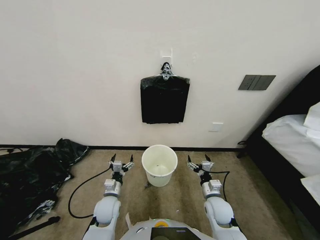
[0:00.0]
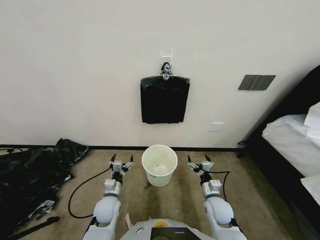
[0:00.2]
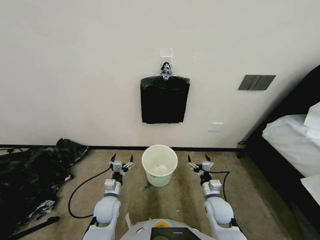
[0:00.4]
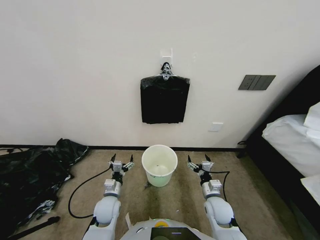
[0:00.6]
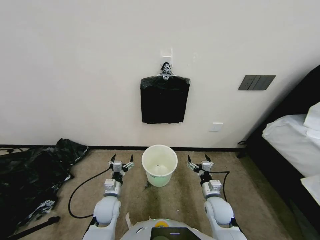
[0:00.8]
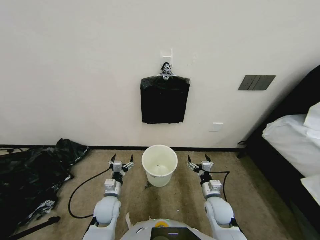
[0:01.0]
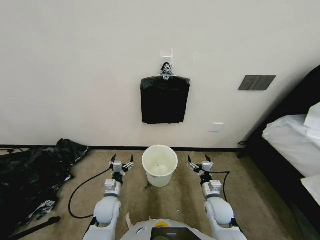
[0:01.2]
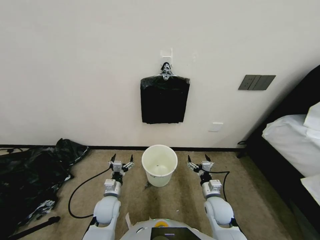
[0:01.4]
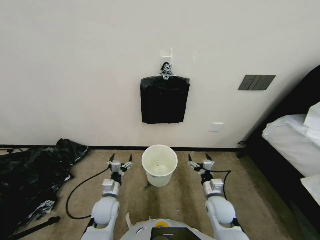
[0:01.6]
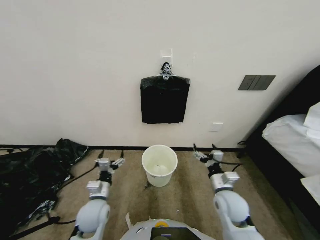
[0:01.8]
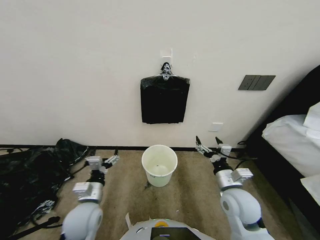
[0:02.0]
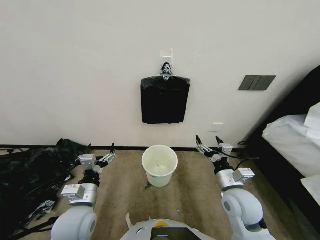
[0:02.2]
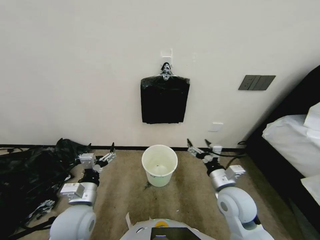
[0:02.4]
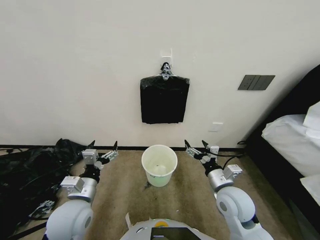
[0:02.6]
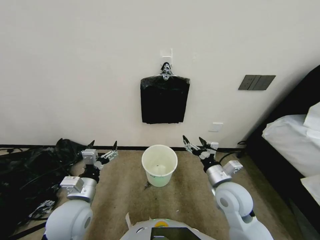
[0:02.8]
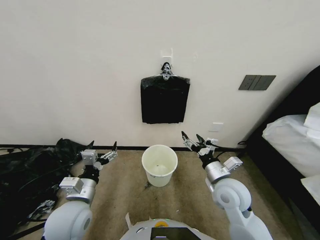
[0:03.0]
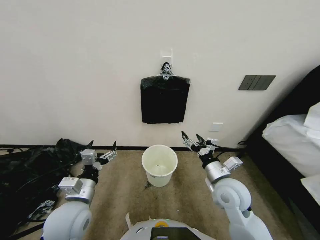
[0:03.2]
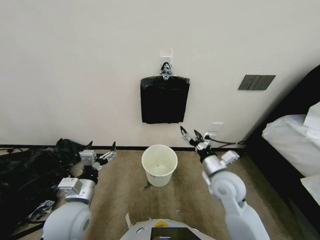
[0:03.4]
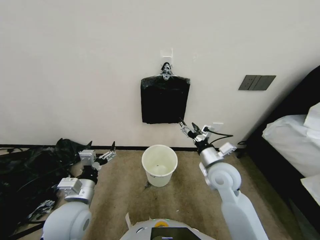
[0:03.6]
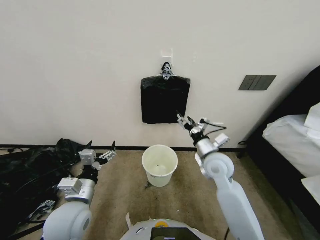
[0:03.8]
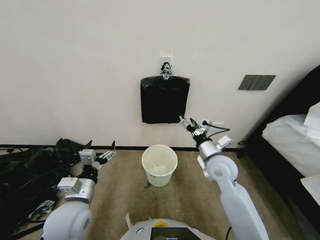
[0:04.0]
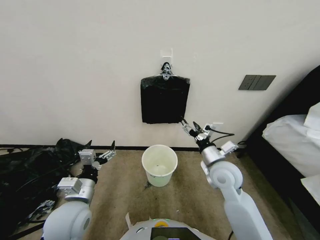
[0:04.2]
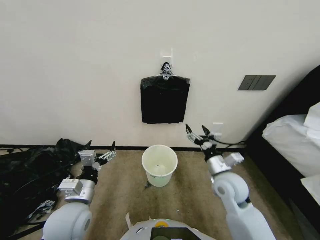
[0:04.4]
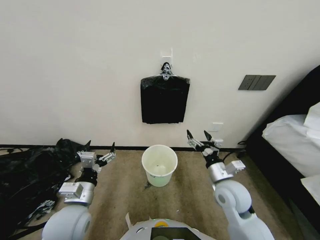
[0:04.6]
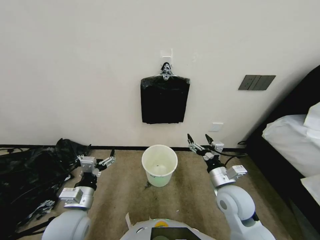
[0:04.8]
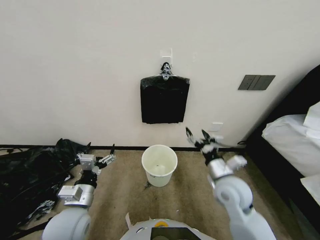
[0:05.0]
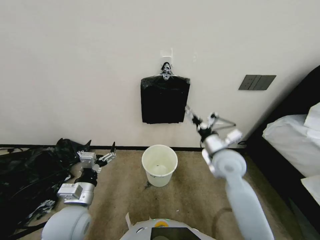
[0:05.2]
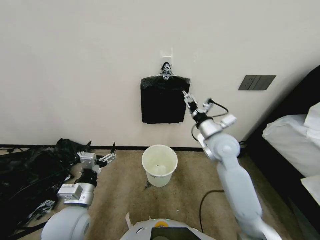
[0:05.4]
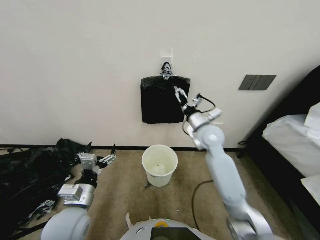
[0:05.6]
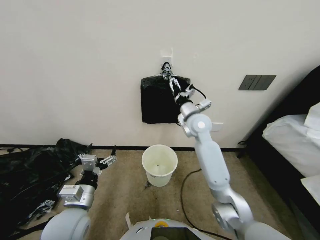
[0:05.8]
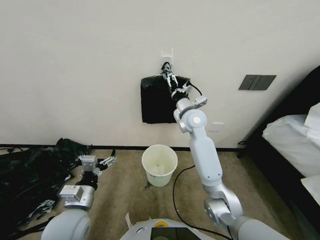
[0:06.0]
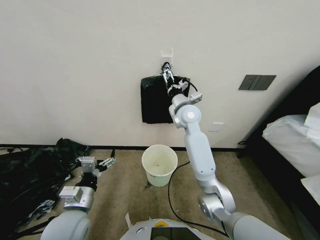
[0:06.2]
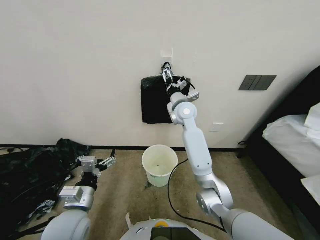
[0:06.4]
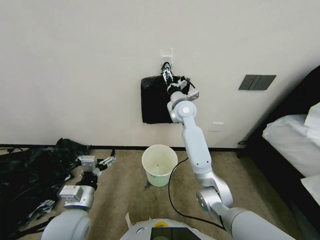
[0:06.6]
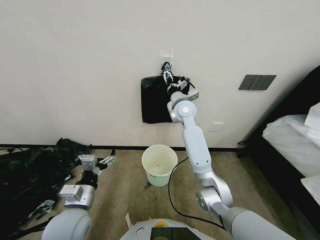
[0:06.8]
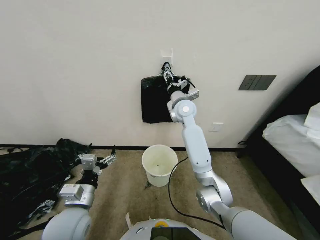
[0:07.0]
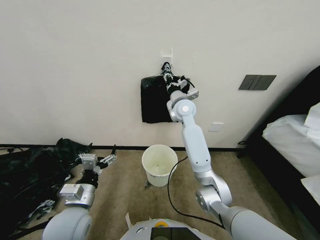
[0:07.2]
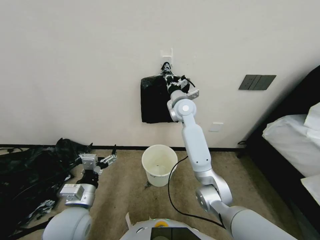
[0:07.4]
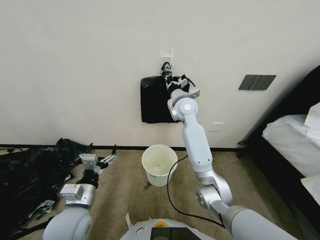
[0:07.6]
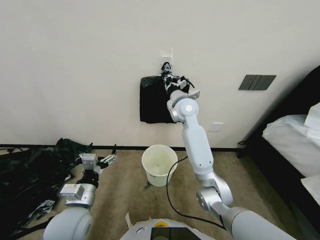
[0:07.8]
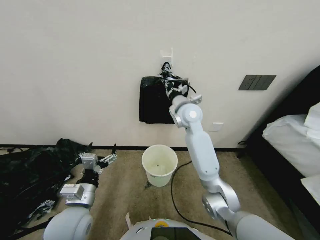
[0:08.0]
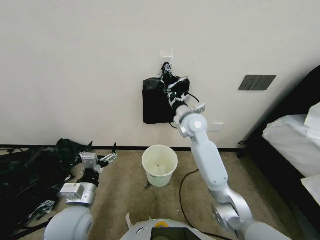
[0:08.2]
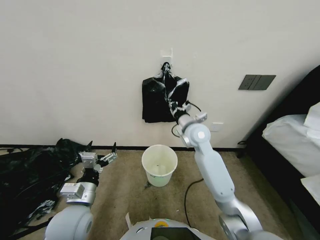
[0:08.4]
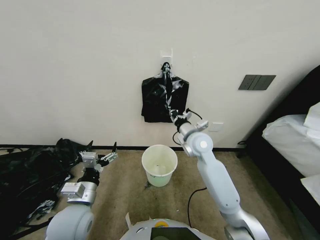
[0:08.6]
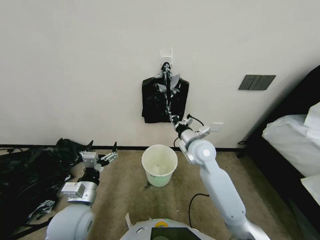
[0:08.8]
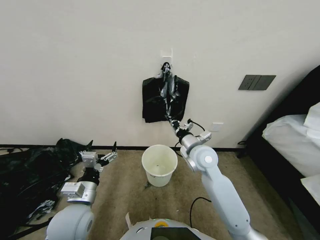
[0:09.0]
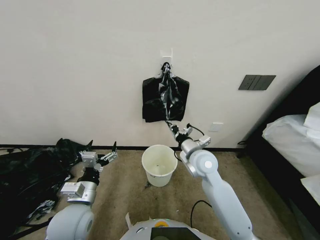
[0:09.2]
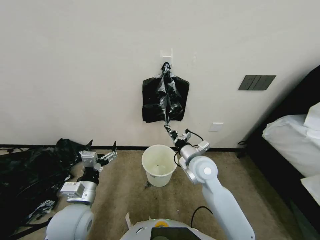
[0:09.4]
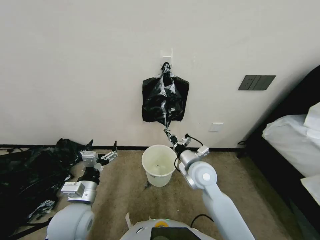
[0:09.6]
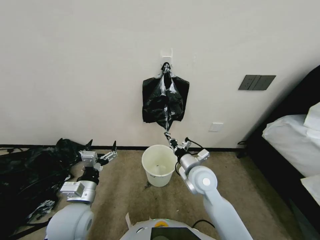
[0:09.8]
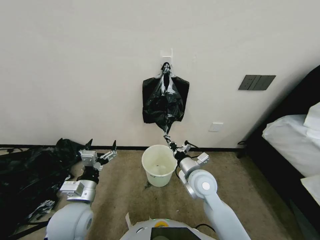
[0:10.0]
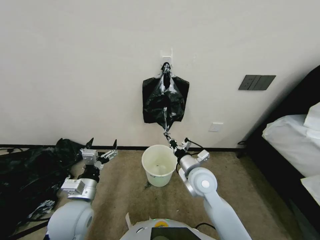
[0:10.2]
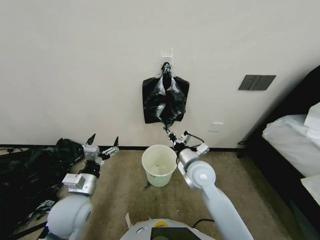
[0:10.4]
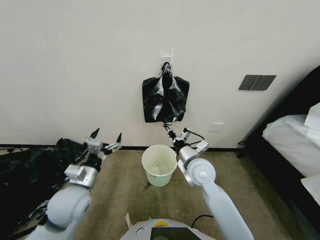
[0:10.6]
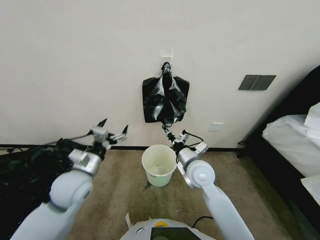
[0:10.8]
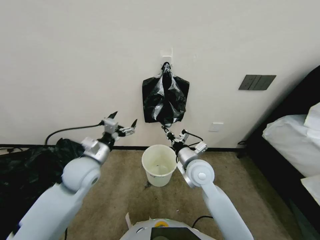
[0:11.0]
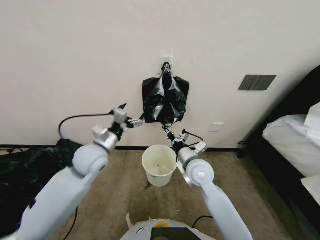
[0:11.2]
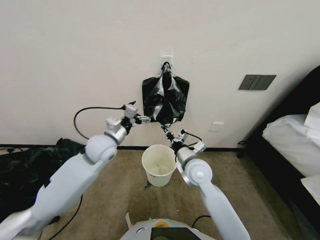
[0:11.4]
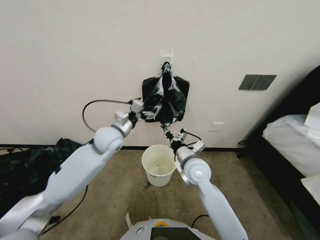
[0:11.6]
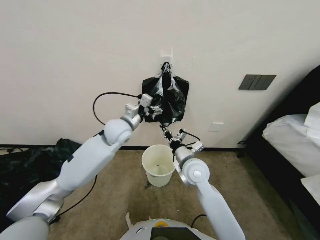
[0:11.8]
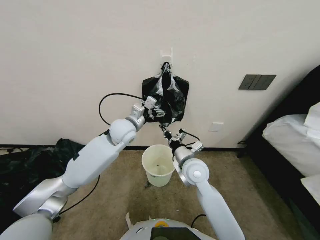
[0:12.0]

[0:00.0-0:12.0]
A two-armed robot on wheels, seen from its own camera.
Task of the whole recording: Place a trash bag onto the trash bin.
0:01.6 to 0:03.0: The grippers both shift upward by about 15 cm.
0:04.4 to 0:06.0: The right gripper travels forward, upward and to the left by about 25 cm.
0:06.0 to 0:07.6: The right gripper heads forward, covering roughly 5 cm, and closes up.
0:07.6 to 0:09.0: The right gripper moves backward and downward, approximately 20 cm.
0:09.0 to 0:10.4: The right gripper is displaced backward by approximately 5 cm.
0:10.4 to 0:12.0: The left gripper moves forward, to the right and upward, about 30 cm.

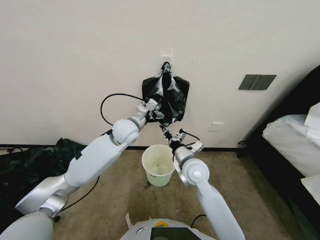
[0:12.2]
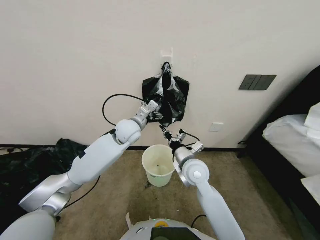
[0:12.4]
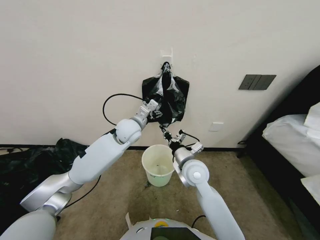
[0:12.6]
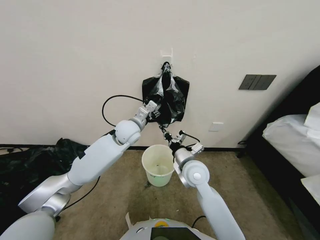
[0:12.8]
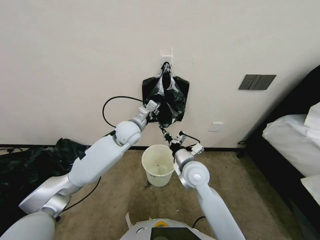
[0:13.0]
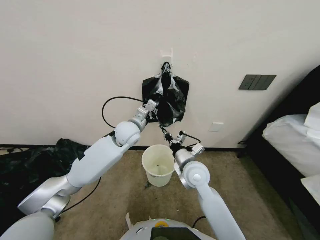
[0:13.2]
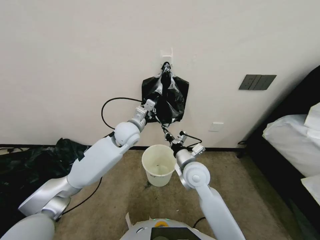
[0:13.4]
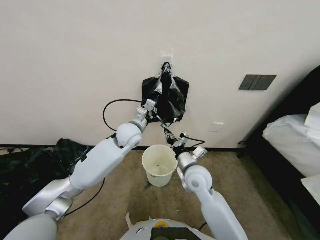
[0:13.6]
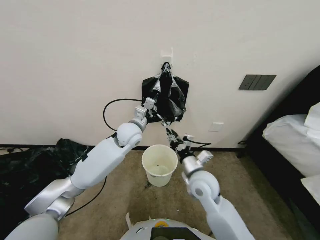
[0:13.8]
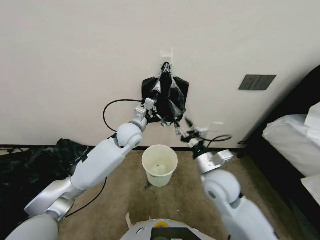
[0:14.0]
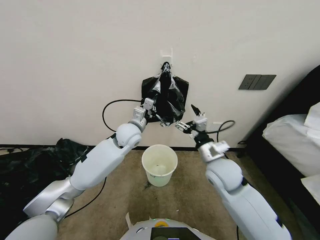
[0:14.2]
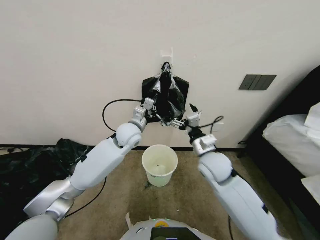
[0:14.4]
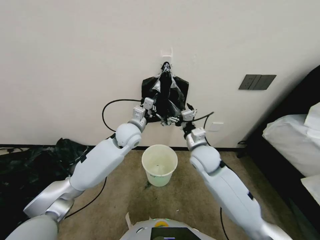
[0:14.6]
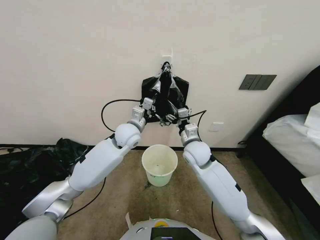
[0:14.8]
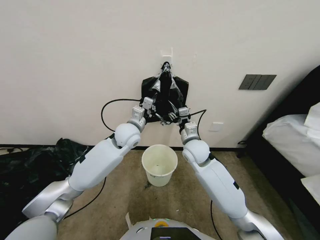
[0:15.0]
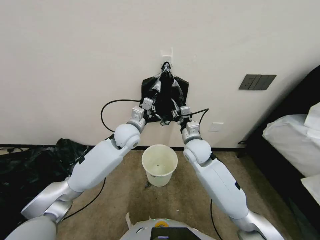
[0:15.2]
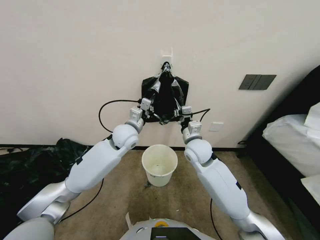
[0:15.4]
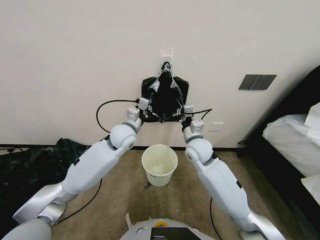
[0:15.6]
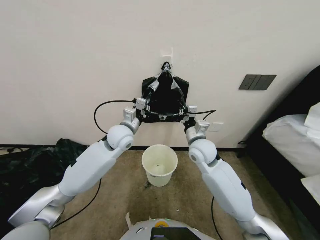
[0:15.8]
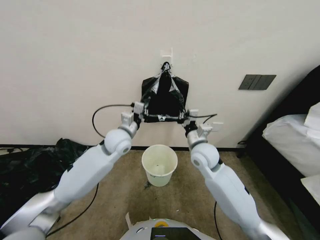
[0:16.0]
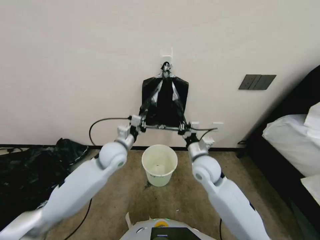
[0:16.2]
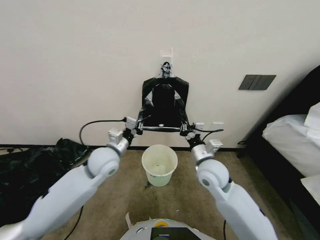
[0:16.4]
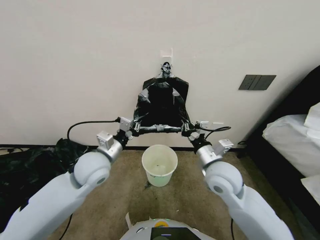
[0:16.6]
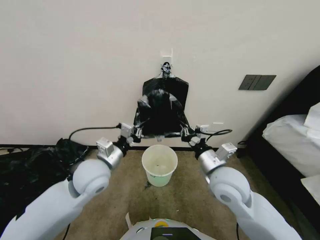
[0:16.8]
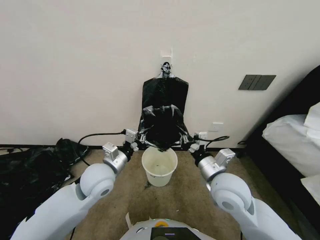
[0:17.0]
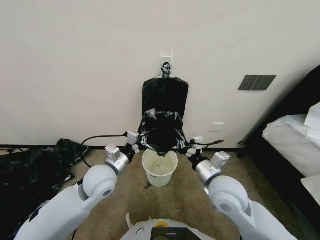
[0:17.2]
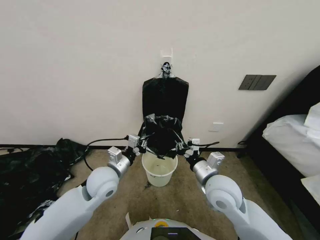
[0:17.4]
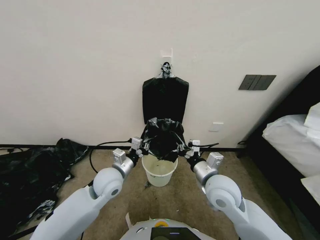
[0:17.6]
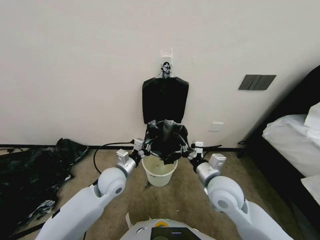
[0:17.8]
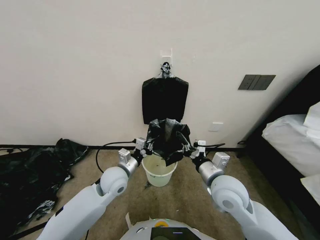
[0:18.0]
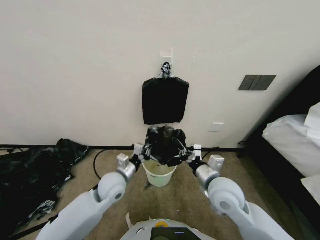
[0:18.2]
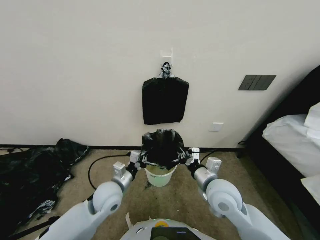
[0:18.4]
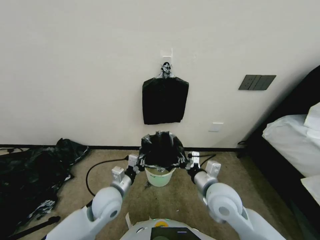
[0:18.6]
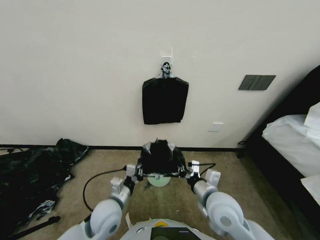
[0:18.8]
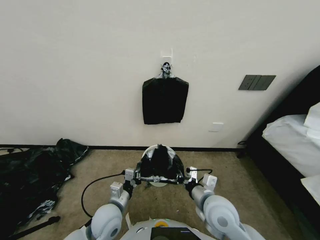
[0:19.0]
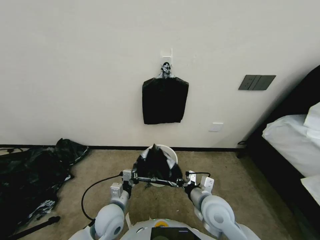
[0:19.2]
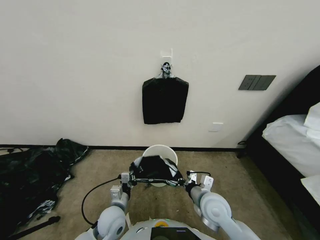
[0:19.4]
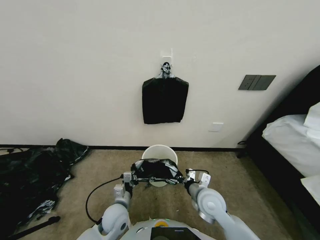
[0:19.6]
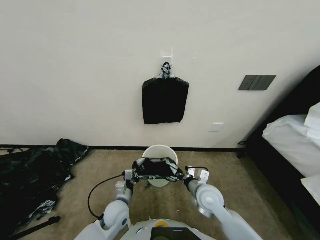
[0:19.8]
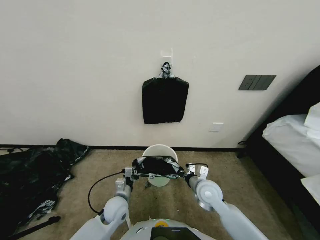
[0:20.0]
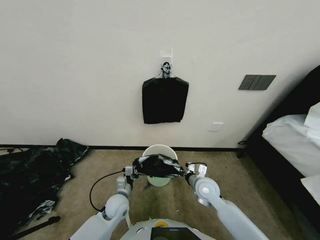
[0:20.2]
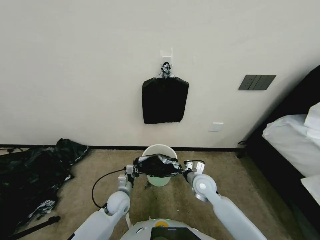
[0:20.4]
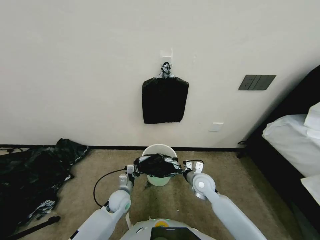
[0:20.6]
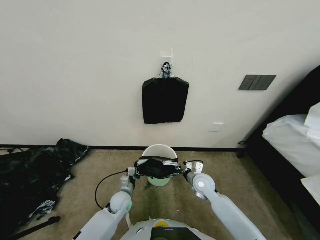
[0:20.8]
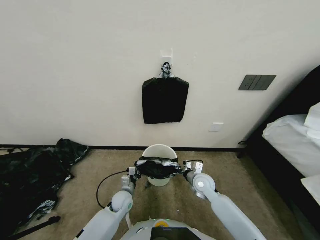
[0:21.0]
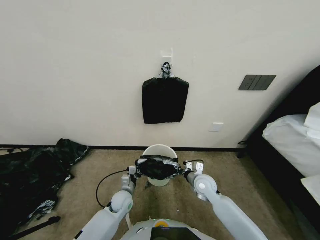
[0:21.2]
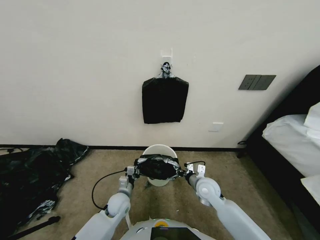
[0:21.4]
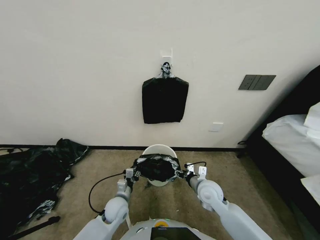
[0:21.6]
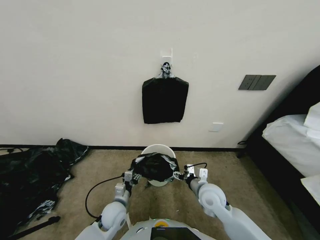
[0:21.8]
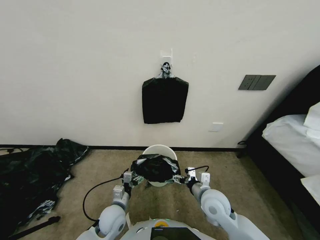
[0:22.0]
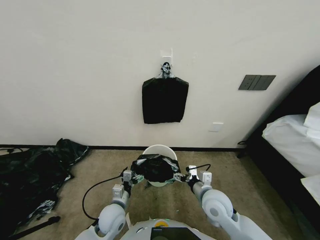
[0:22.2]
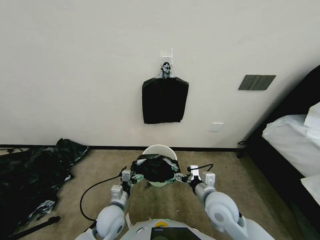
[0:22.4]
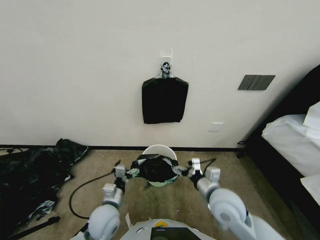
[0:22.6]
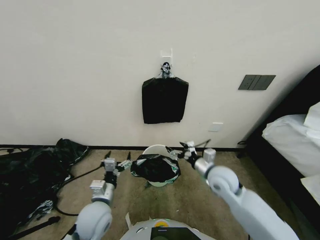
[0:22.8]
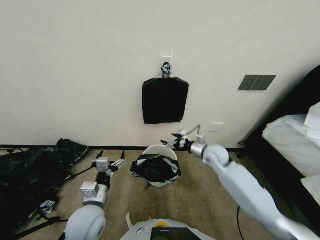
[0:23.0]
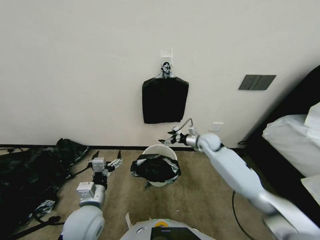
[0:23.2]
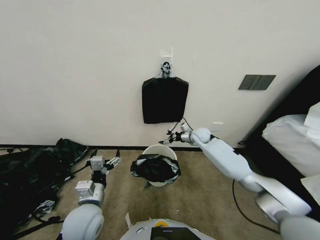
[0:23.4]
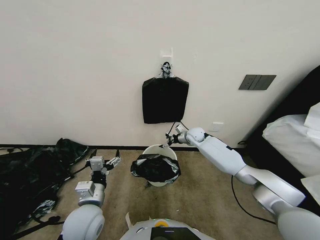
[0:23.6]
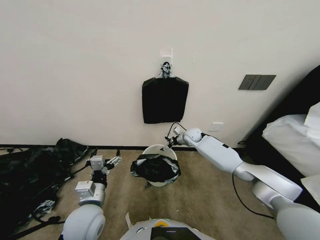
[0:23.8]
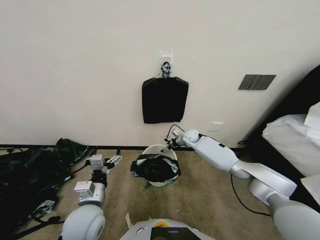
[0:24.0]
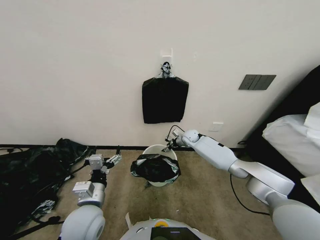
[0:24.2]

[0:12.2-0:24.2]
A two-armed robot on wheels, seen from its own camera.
Task of the whole recording: Place a trash bag onto the trash bin.
0:12.2 to 0:13.8: The left gripper closes.
0:13.8 to 0:15.2: The right gripper goes approximately 10 cm forward, and opens and closes again.
0:15.2 to 0:16.6: The right gripper shifts about 10 cm backward, and closes; the left gripper moves backward and to the left, about 15 cm.
0:16.6 to 0:18.2: The left gripper shifts some 10 cm downward. Meanwhile the right gripper changes place by roughly 5 cm.
0:18.2 to 0:19.8: The left gripper shifts approximately 15 cm downward and backward; the right gripper moves downward, approximately 10 cm.
0:19.8 to 0:21.2: Both grippers move forward and downward, roughly 10 cm.
0:21.2 to 0:22.6: The left gripper shifts approximately 15 cm upward and backward, and opens. Meanwhile the right gripper shifts approximately 15 cm backward and upward, and opens.
0:22.6 to 0:24.2: The left gripper travels upward by some 10 cm. Meanwhile the right gripper is displaced forward by roughly 35 cm.
